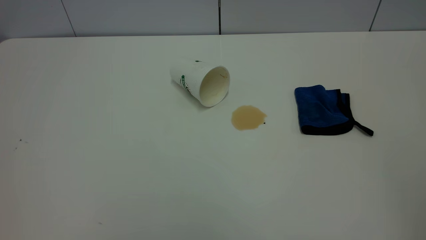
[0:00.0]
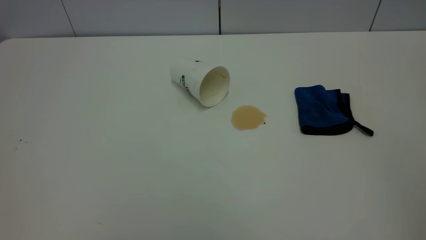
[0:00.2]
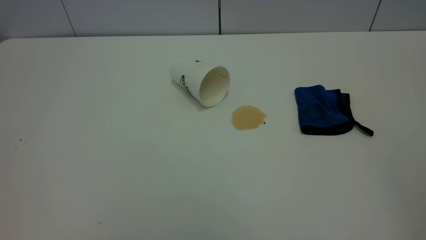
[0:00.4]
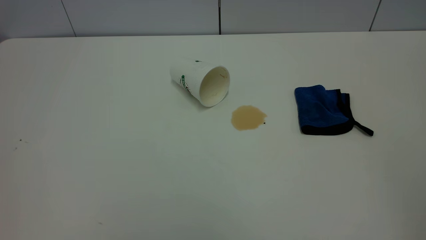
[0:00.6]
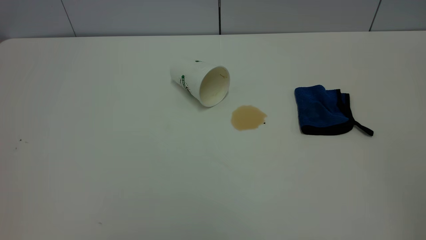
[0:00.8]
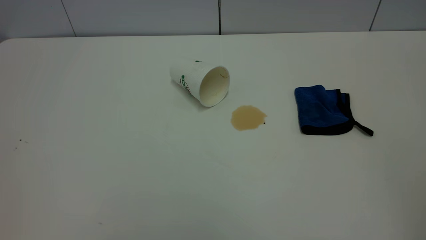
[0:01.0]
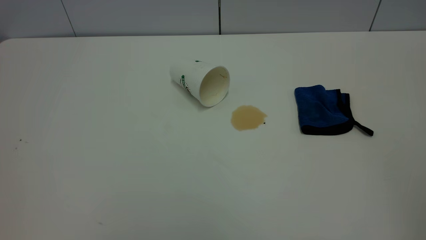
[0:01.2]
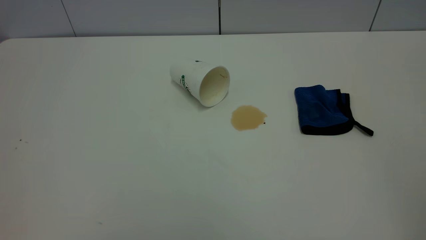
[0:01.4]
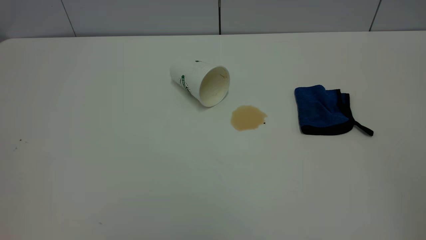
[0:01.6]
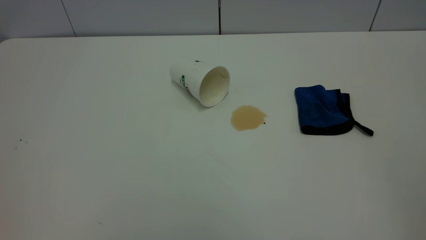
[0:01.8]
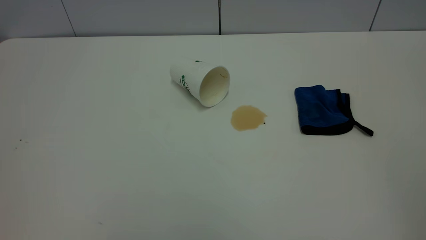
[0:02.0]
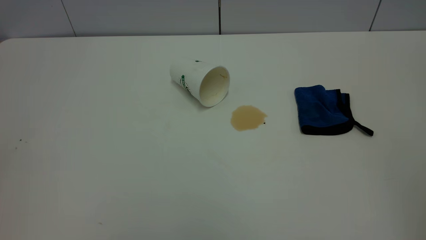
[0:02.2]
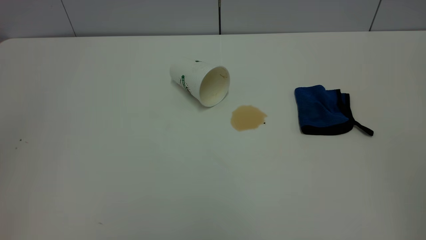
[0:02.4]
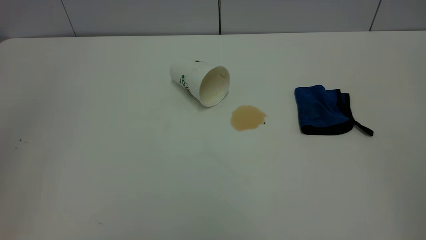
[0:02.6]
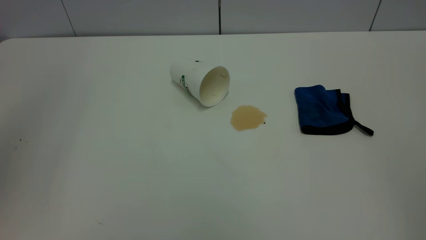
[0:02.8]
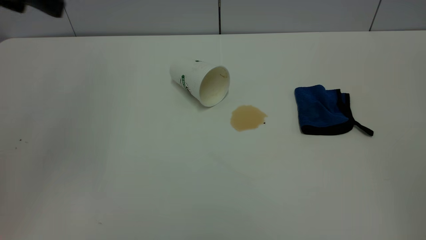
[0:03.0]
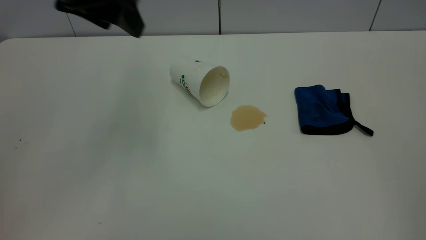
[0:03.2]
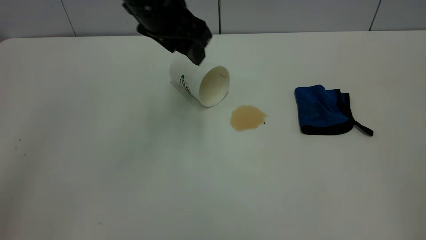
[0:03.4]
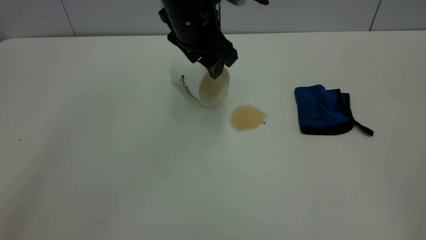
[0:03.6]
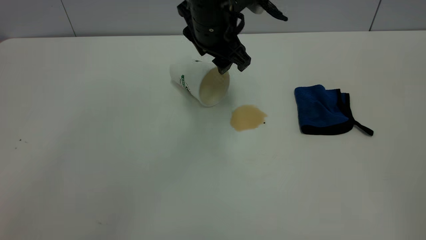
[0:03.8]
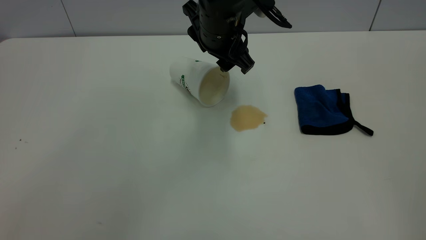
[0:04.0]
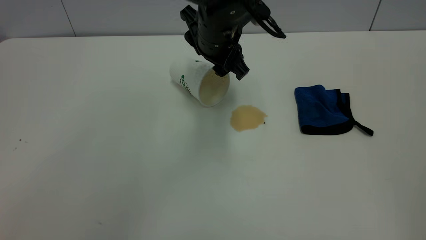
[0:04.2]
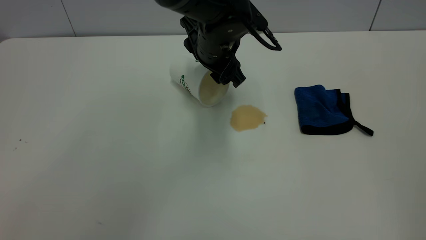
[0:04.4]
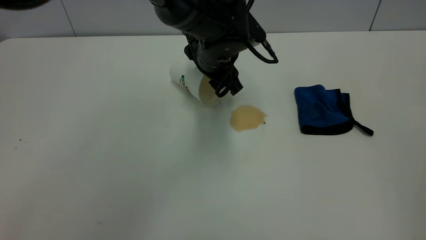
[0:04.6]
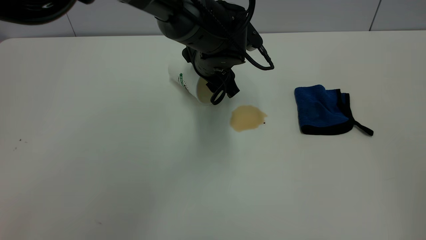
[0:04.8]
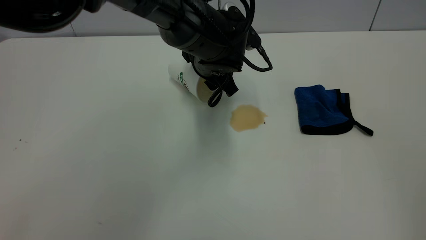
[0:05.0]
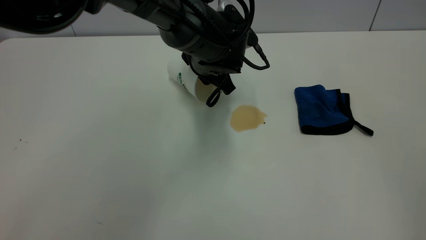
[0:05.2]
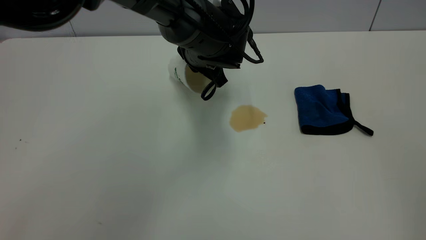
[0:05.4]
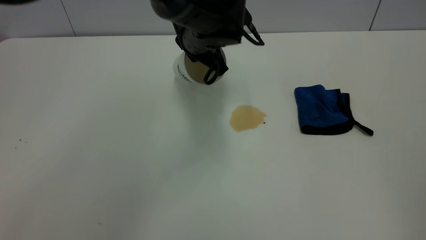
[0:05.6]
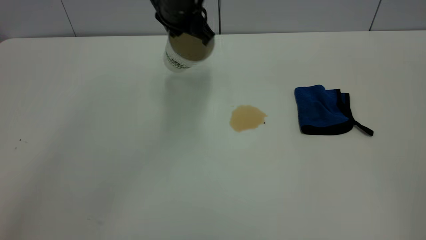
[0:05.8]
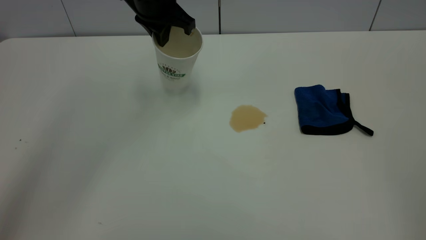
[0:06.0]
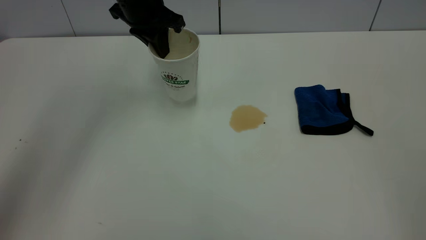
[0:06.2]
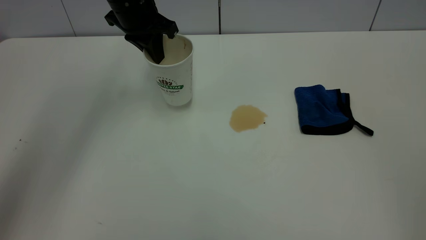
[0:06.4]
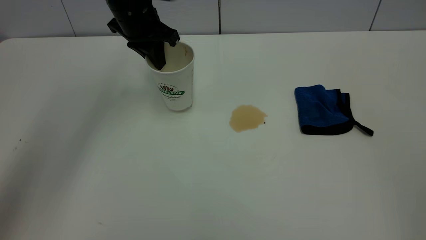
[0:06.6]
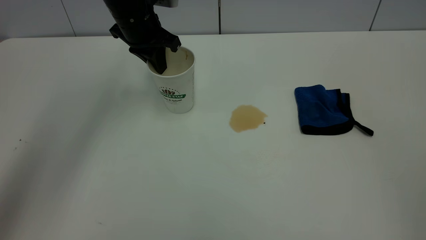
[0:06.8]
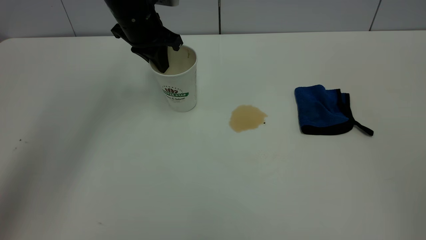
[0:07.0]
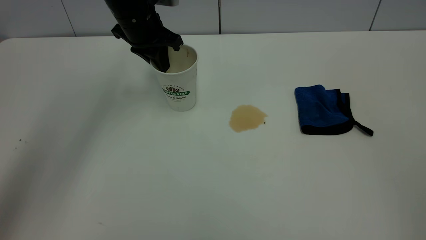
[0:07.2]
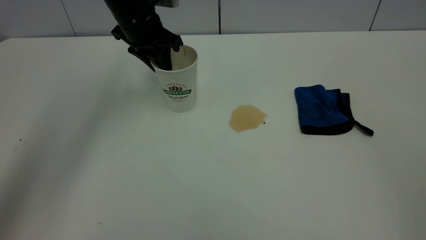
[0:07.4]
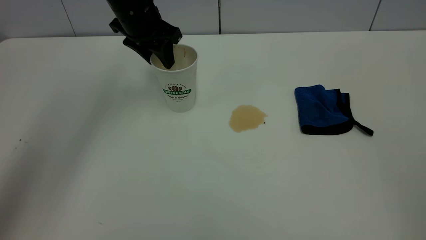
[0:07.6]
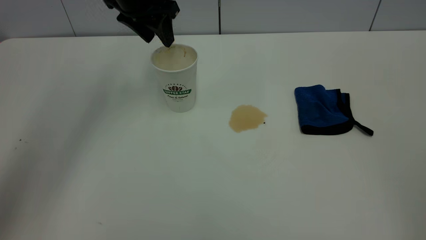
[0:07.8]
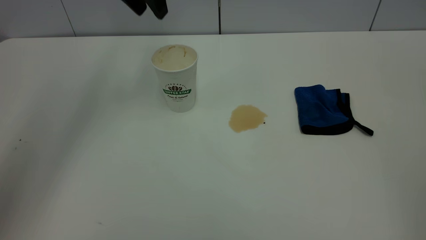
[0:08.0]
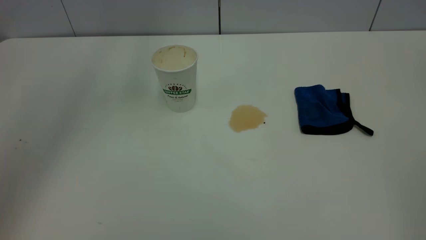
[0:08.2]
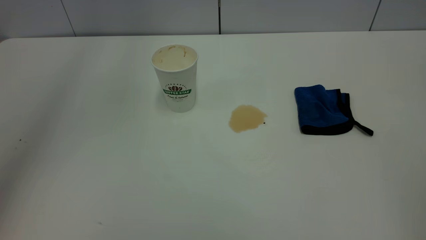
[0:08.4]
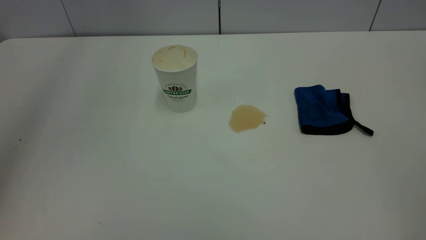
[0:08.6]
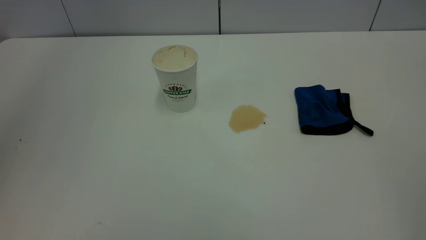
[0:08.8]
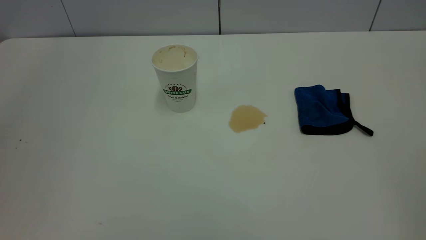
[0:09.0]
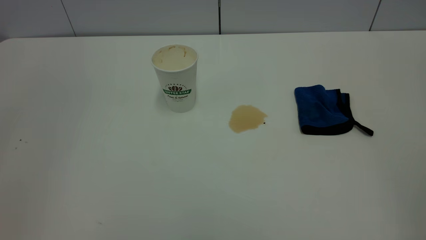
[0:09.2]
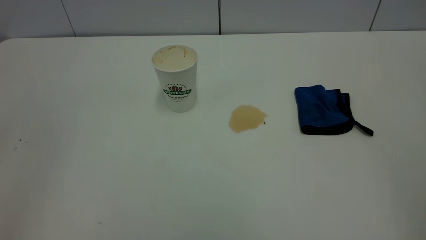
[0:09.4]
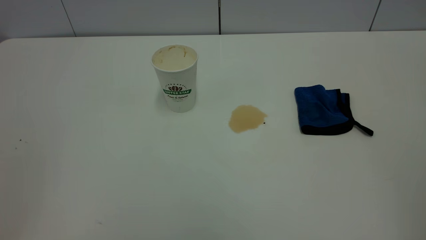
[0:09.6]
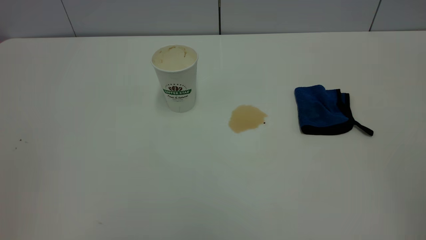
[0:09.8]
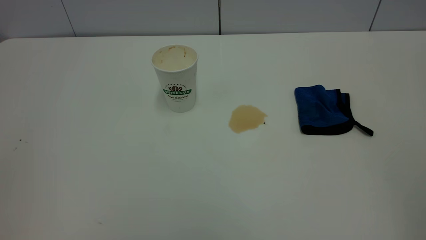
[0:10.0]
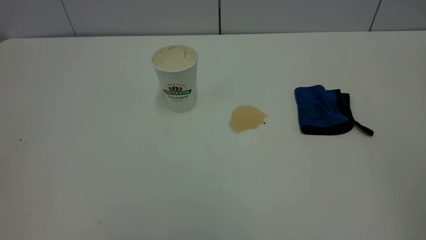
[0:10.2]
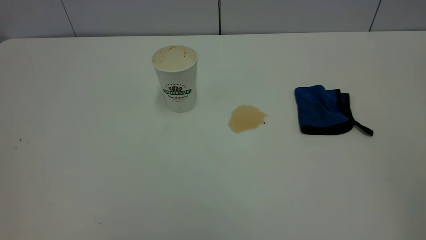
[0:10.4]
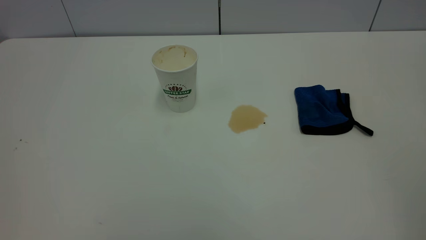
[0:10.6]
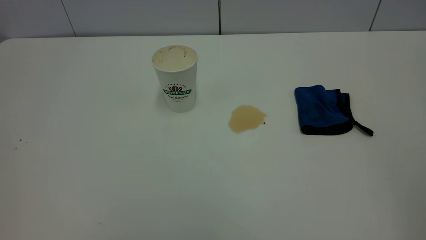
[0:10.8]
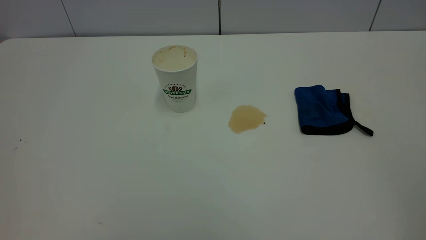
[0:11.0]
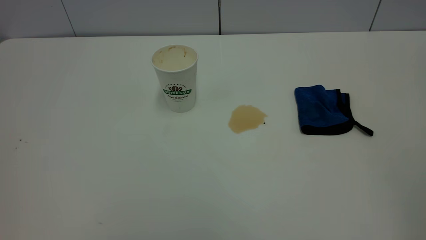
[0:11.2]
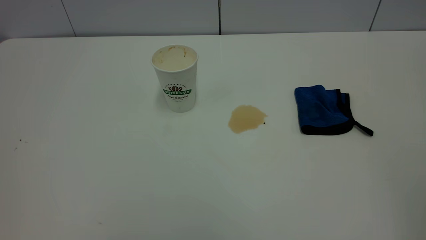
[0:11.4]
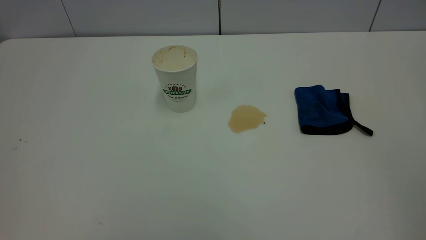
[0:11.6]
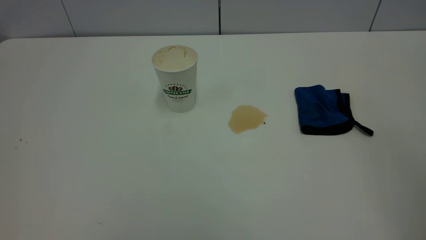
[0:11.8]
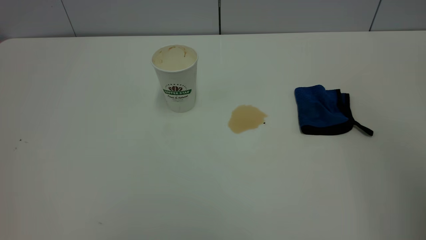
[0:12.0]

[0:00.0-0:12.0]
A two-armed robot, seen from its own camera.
Task of the whole recording: the left gripper pick up the fallen cup and place it upright, the right gripper grasp the blue rag and wipe the tea stain on the table, the right gripper put the blue rag back in its original position.
Step, 0:00.0 to 0:07.8: Stand the paper cup upright.
0:00.0 to 0:01.6: Both grippers stay about where they are.
0:01.6 to 0:03.0: The left gripper is displaced forward by some 30 cm.
0:03.0 to 0:04.4: The left gripper heads to the right, downward and forward, covering approximately 30 cm.
0:04.4 to 0:06.0: The left gripper goes some 15 cm to the left, upward and forward, and closes up.
0:06.0 to 0:07.6: The left gripper ends up about 5 cm from where it was, and opens.
0:07.6 to 0:09.0: The left gripper is displaced upward and backward by approximately 40 cm.

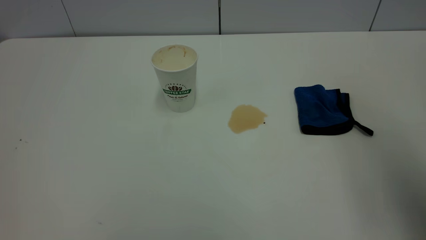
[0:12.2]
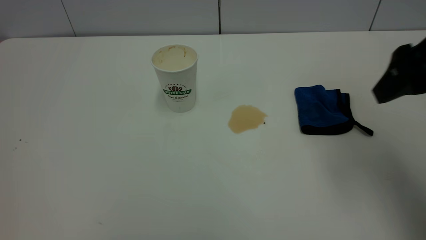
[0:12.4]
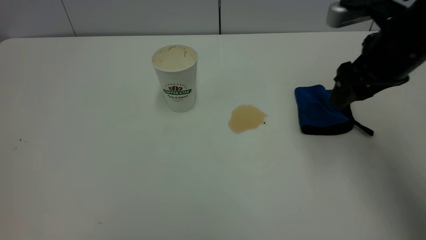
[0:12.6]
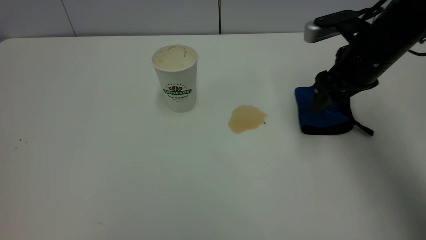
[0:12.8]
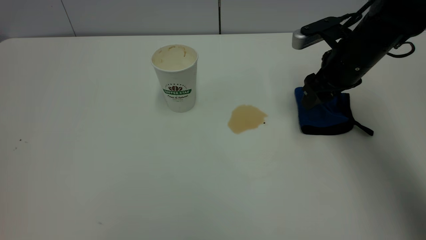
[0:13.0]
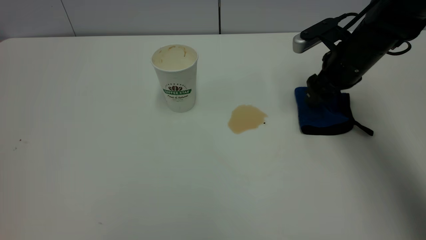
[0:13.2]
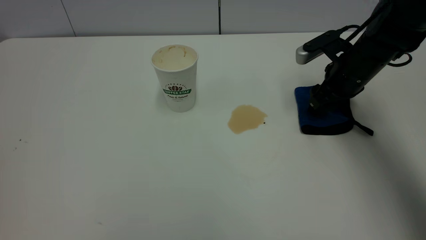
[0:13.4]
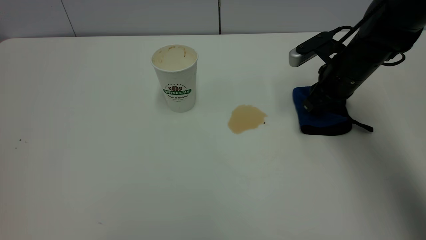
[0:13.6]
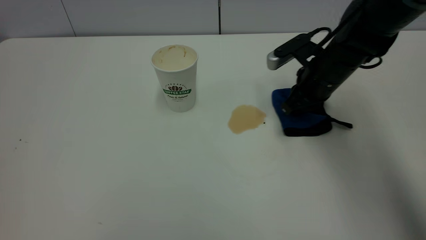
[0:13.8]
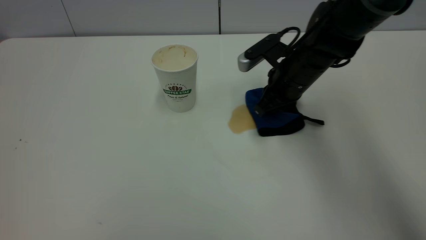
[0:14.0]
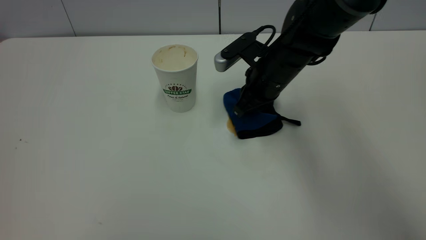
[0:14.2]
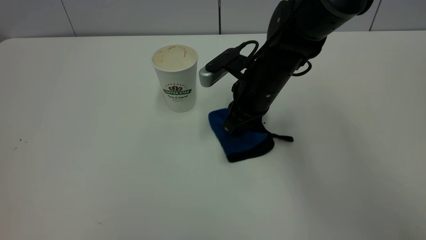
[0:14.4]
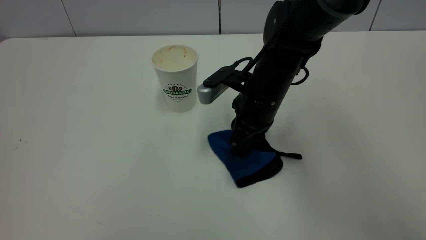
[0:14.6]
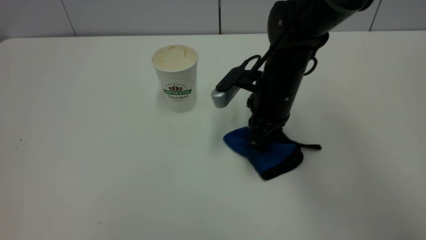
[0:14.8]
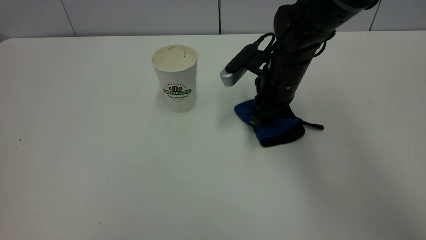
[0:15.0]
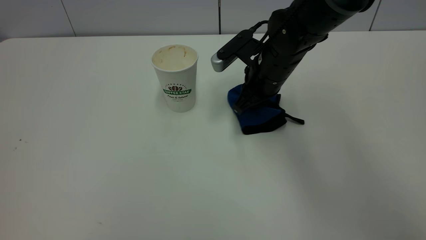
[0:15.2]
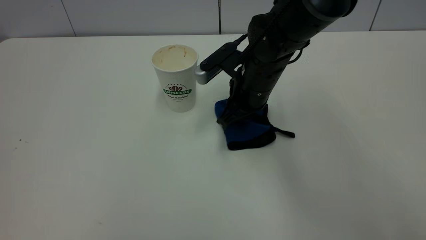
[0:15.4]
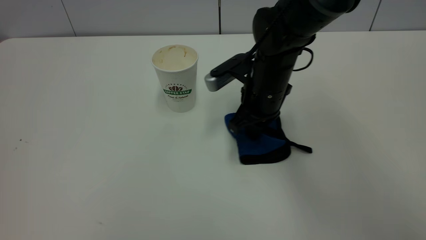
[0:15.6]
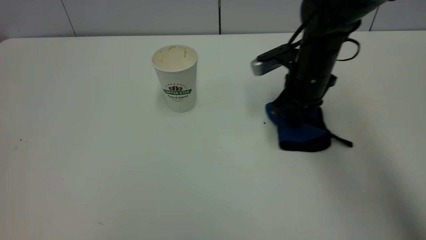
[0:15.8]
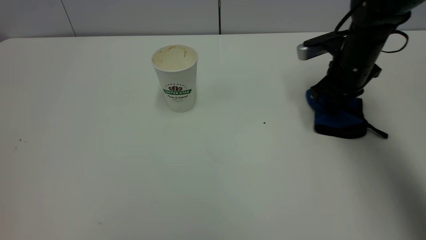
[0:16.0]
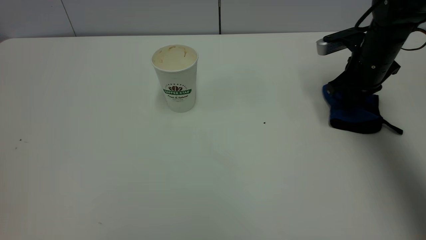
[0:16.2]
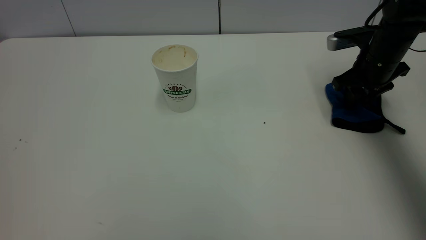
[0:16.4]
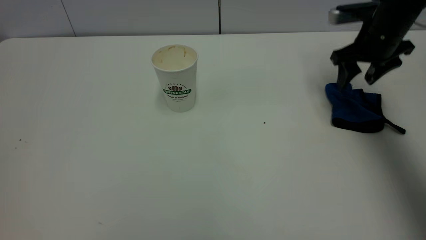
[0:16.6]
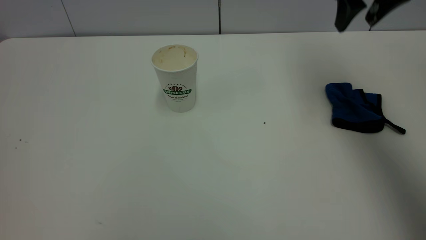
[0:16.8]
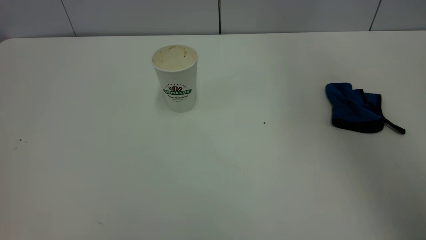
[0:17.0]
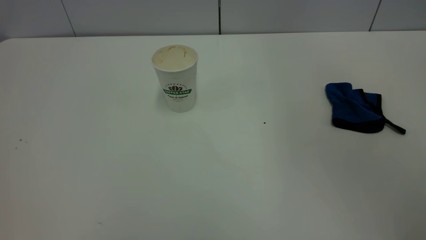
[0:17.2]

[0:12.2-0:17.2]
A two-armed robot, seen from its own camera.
Task of the whole recording: the left gripper pick up the fallen cup and place it upright, the right gripper grasp the blue rag and wipe the tea stain on the table, the right gripper put the blue rag back in its original position.
Step, 0:12.2 to 0:16.6: Wipe the stains off the table with a rag.
0:12.2 to 0:13.8: The right gripper goes some 30 cm forward, downward and to the left, and closes up.
0:13.8 to 0:15.6: The right gripper heads to the left, covering approximately 10 cm.
0:15.6 to 0:17.2: The right gripper shifts approximately 35 cm upward, and opens.
